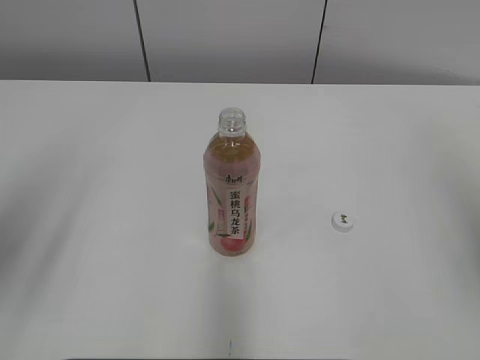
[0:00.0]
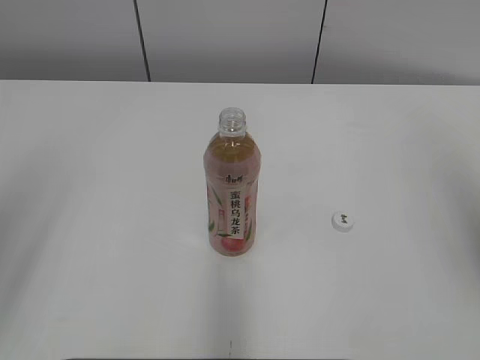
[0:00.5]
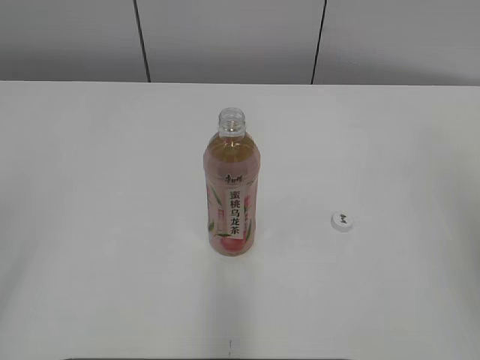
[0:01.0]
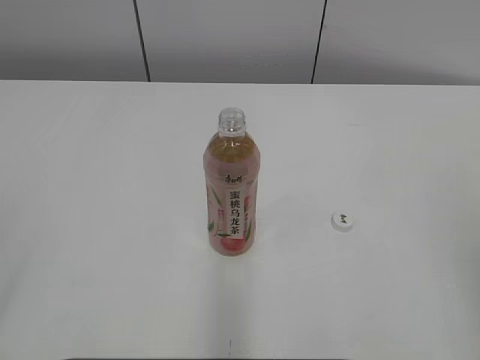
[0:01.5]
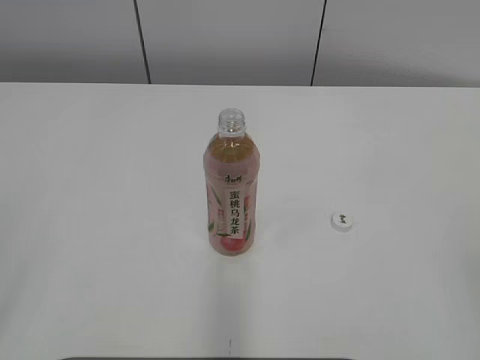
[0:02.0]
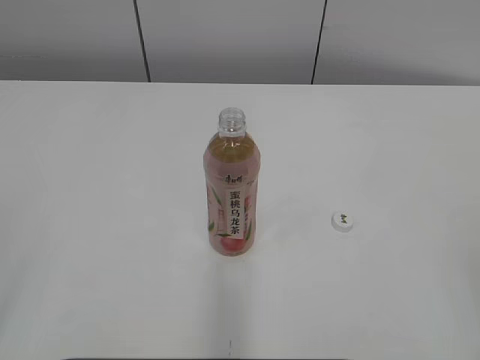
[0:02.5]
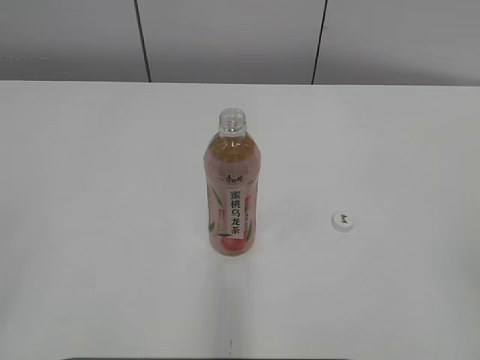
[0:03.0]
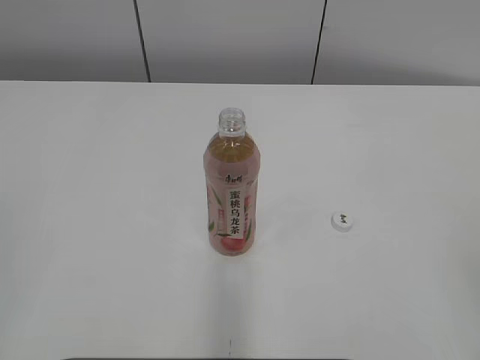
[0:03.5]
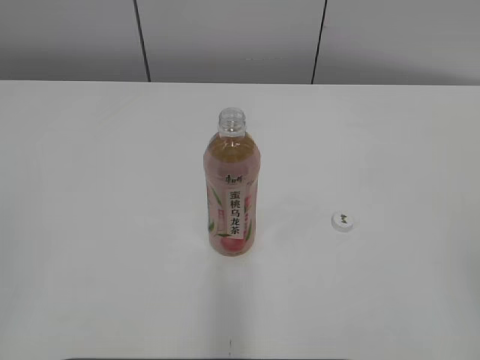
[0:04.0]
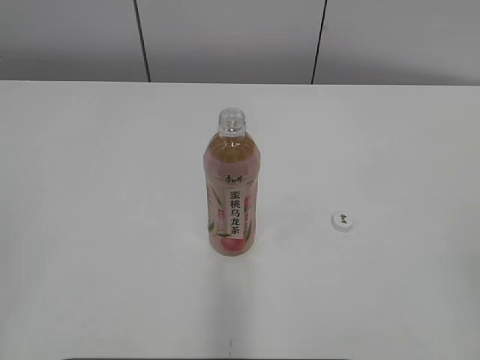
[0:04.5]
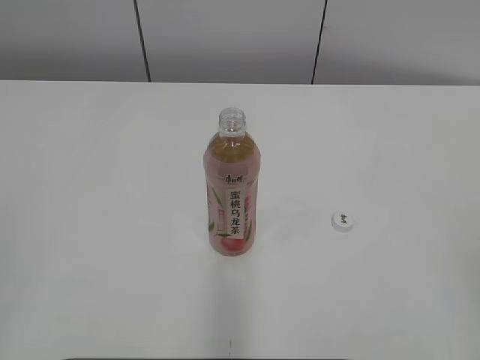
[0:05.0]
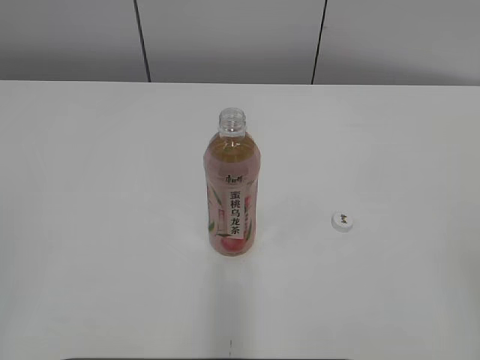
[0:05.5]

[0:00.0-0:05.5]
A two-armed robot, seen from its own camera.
0:00.0 to 0:02.0: The right gripper moves backward and downward, approximately 15 cm; the left gripper heads backward, covering roughly 15 cm.
0:03.5 to 0:05.5: Both grippers stay put.

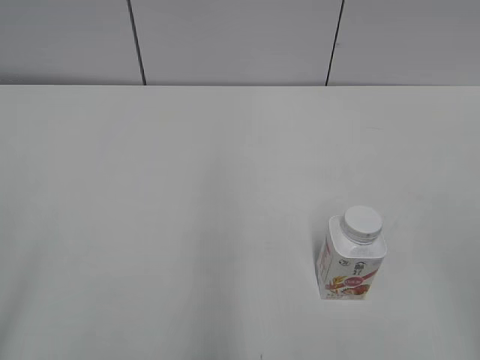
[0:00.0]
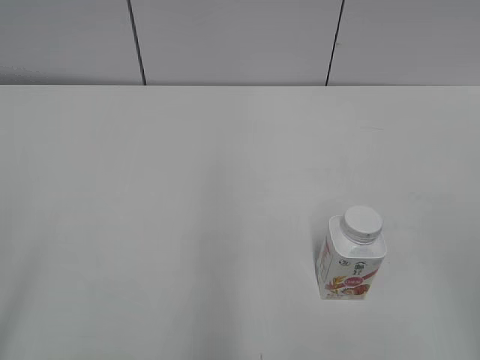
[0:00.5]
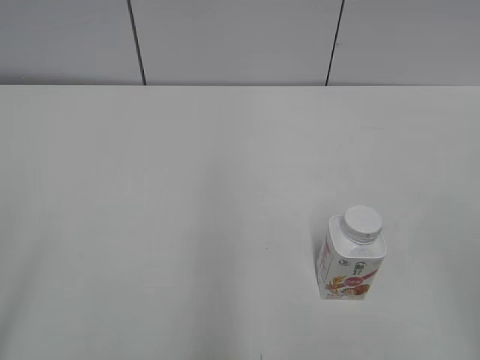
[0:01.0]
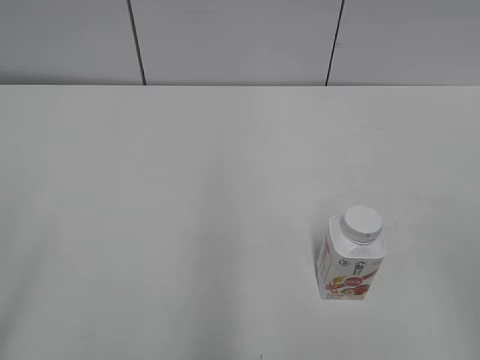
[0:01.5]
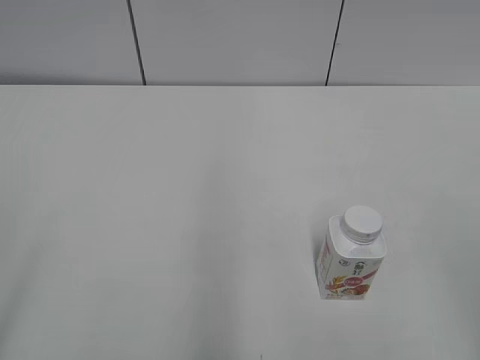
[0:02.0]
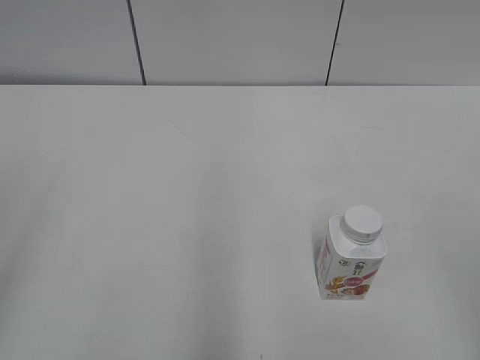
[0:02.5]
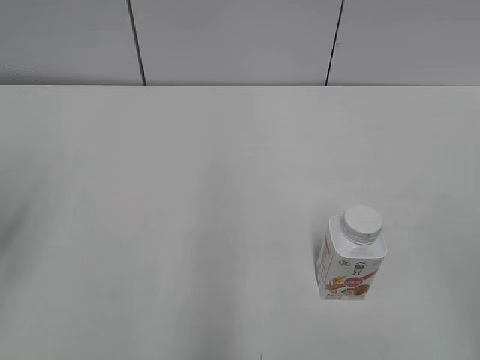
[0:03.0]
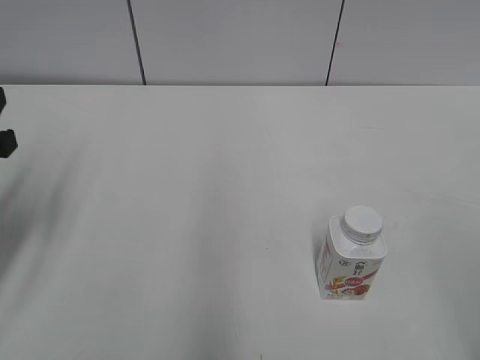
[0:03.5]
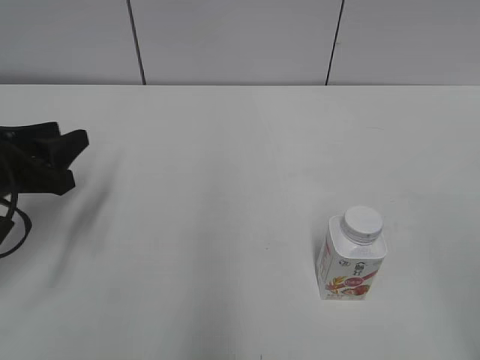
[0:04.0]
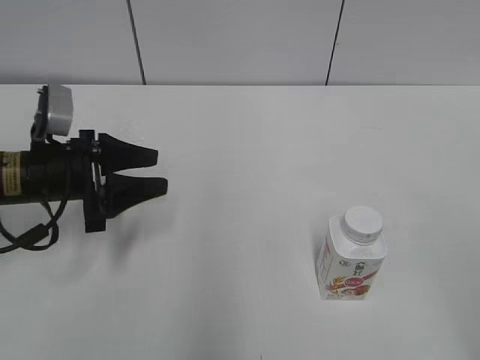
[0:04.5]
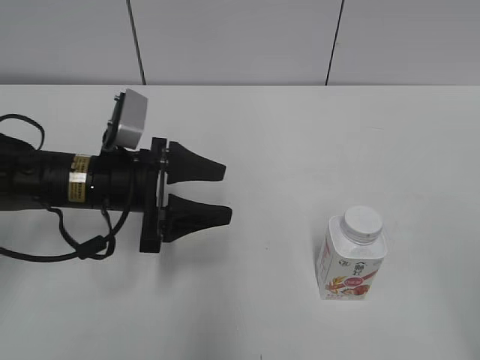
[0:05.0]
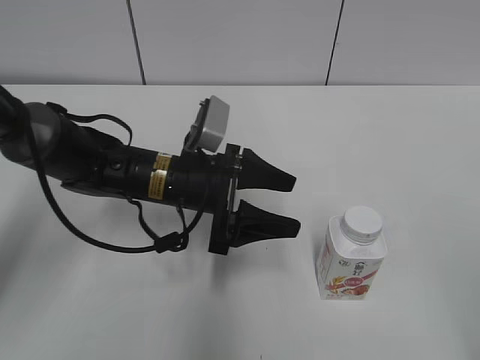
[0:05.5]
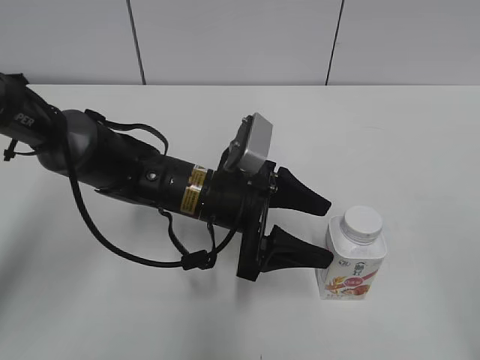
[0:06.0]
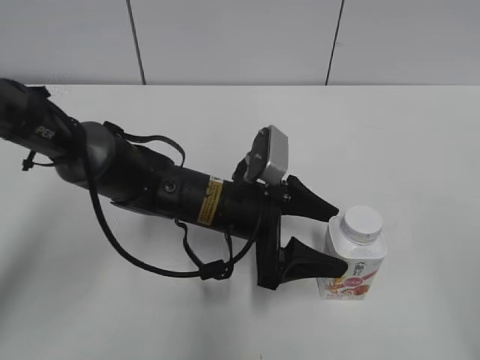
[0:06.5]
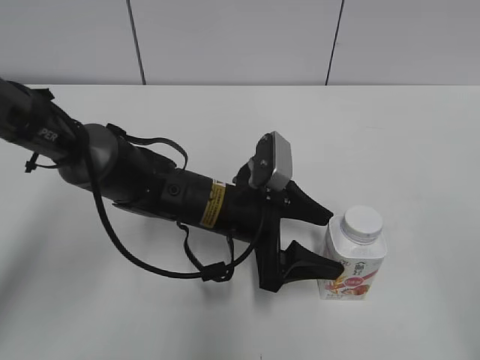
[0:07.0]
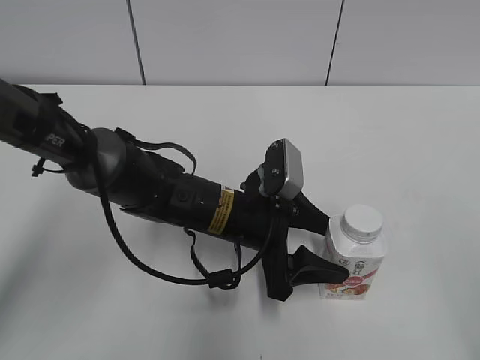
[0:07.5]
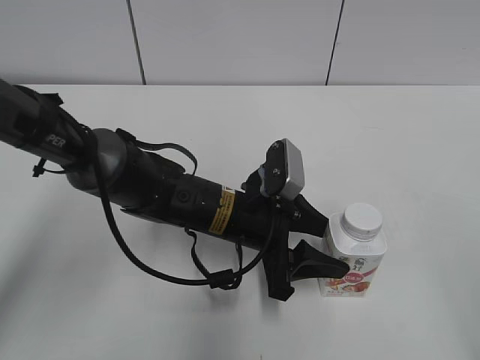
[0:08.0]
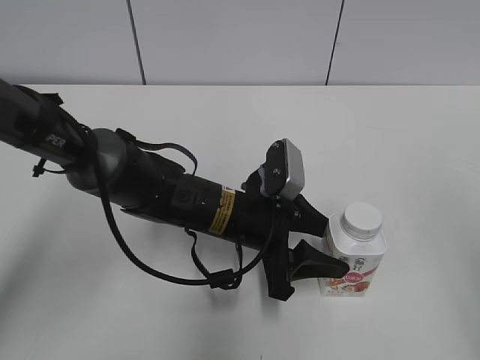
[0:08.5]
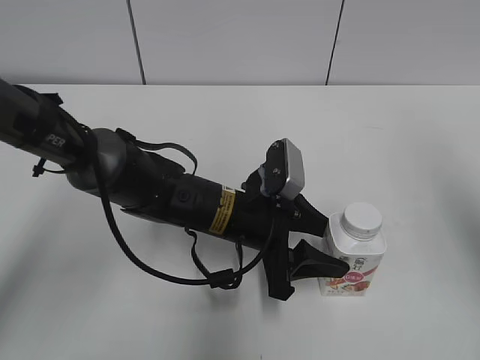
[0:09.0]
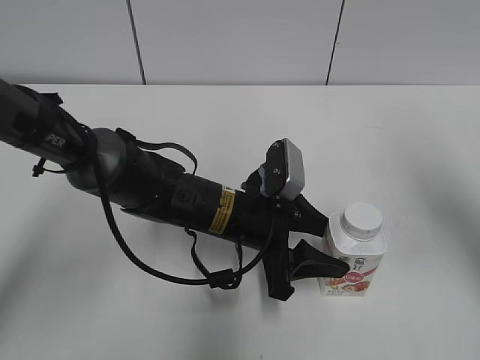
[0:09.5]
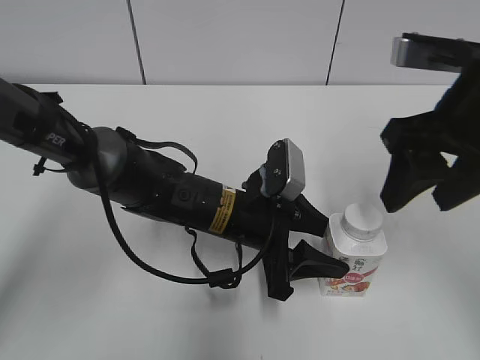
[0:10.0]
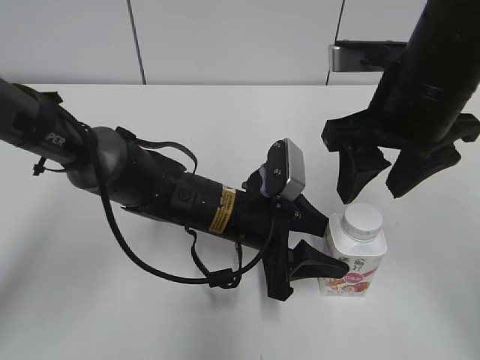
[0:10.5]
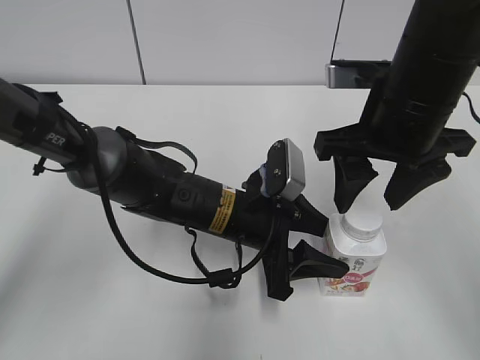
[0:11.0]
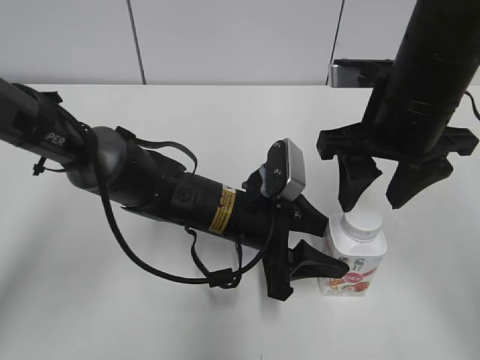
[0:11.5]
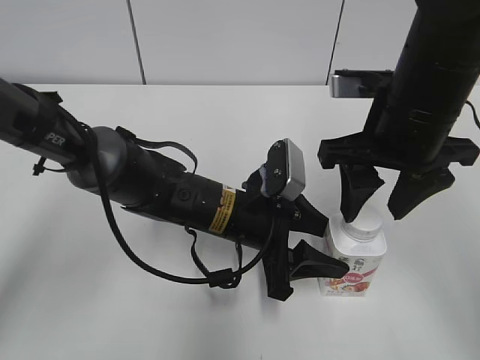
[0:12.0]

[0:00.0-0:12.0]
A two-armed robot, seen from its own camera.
Step, 0:00.0 to 0:08.0: Grab the Yili Changqing with the left hand.
0:02.0 to 0:04.0: The left gripper heads forward and downward, covering some 30 cm, and closes its fingers.
0:04.0 to 0:06.0: The left gripper goes roughly 25 cm to the right, and opens up.
0:06.0 to 0:08.0: The left gripper closes up.
0:08.0 to 0:10.0: The right gripper heads forward and to the left, covering approximately 25 cm.
0:10.0 to 0:12.0: The right gripper shifts by approximately 5 cm.

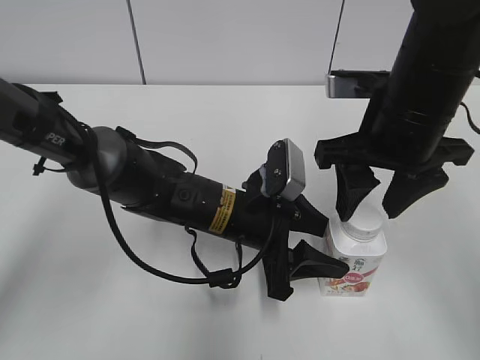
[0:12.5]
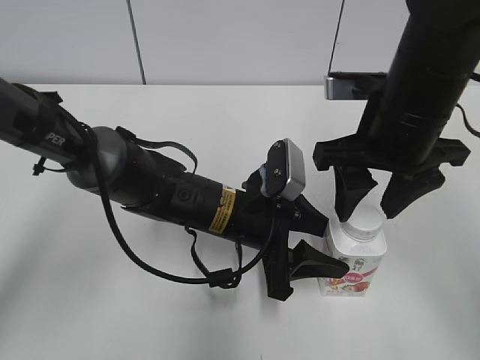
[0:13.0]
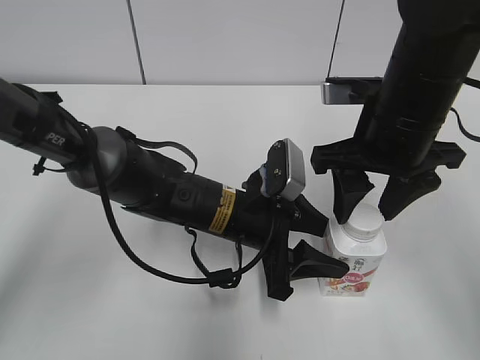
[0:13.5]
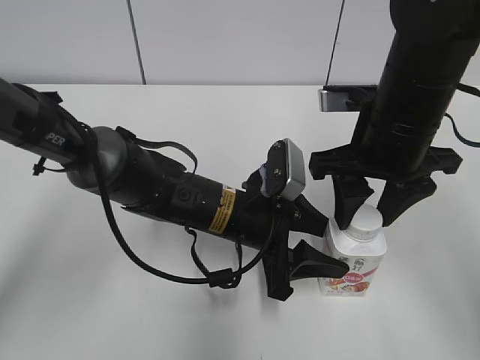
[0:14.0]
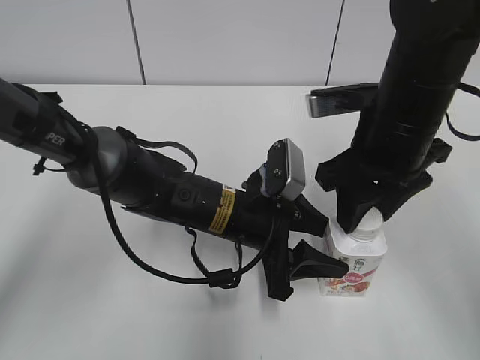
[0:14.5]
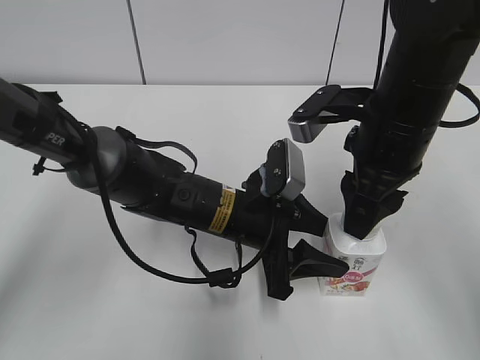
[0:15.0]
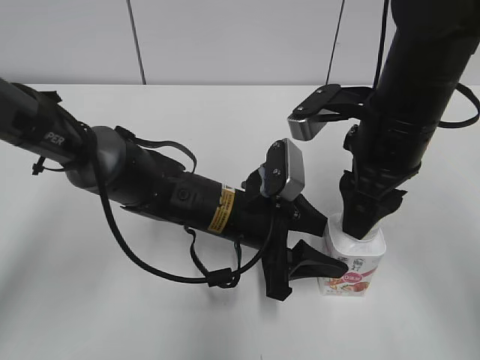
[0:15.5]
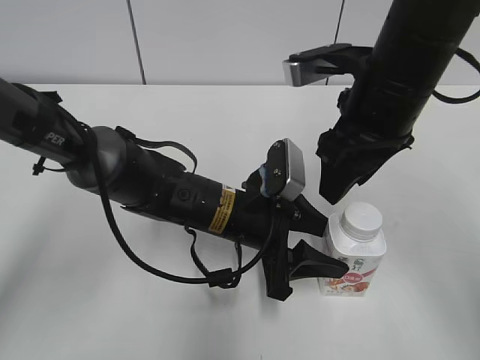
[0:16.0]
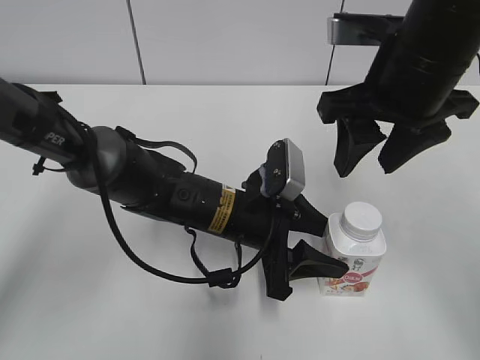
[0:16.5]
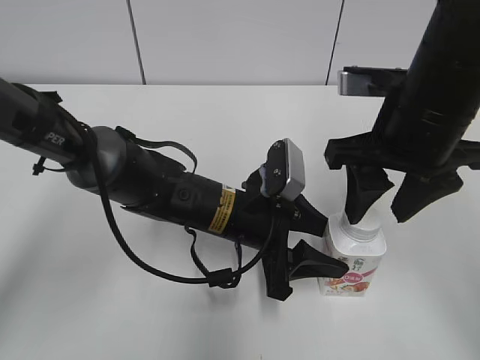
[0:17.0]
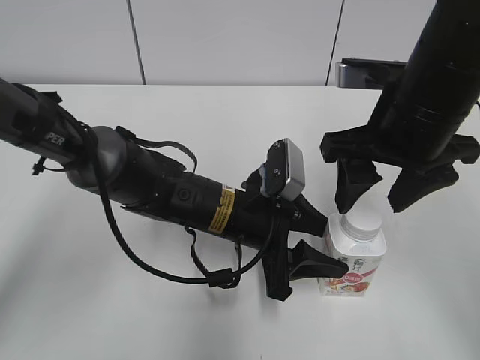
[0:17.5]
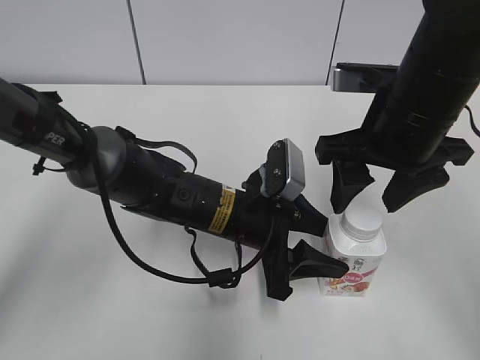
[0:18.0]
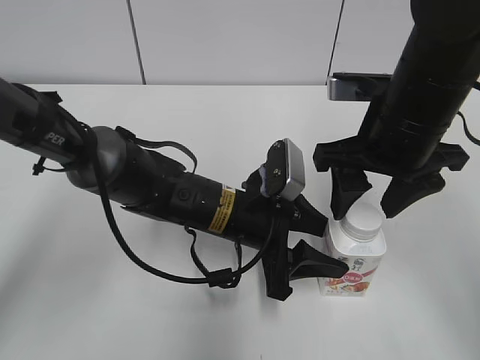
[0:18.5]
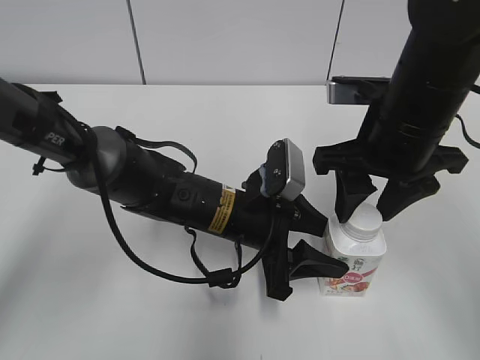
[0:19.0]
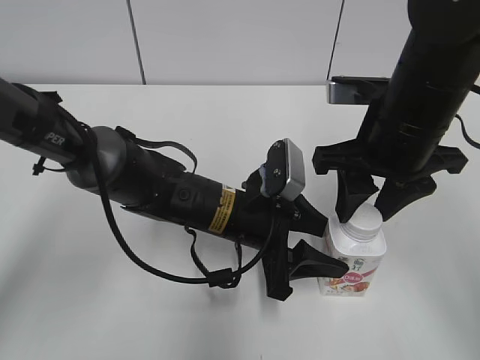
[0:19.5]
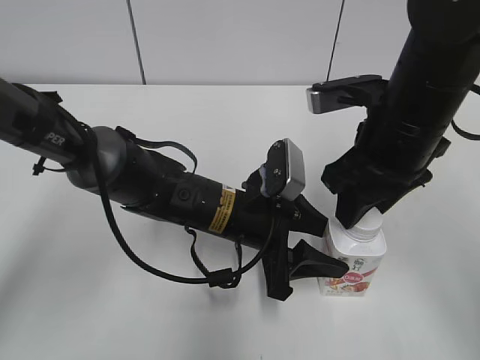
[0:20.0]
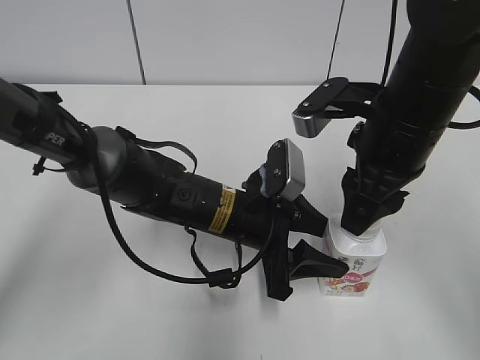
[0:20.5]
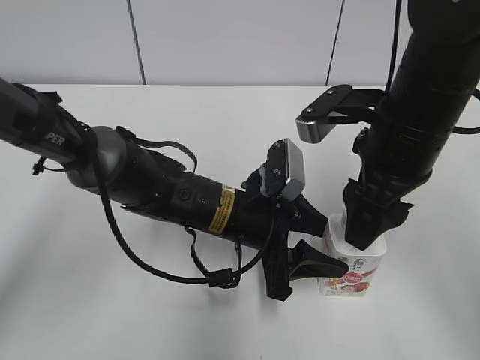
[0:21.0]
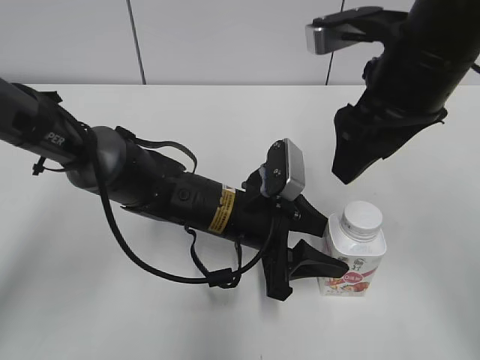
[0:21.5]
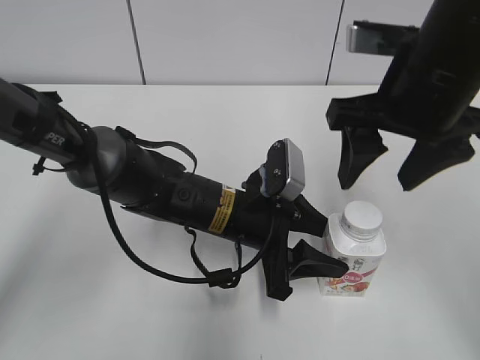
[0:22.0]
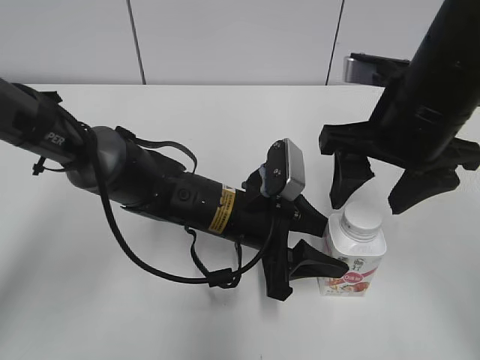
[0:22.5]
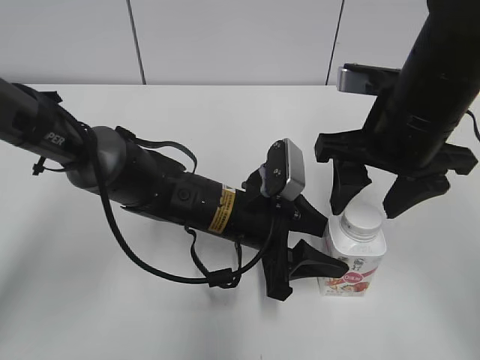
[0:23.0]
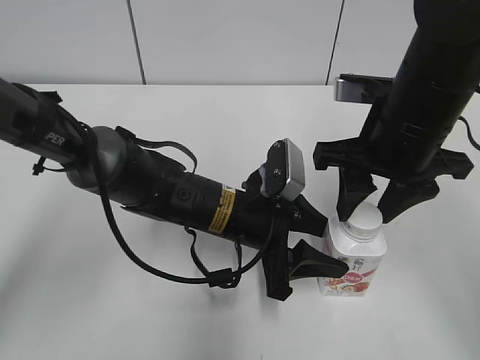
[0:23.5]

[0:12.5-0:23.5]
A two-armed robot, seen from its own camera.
0:12.5 to 0:14.5: The right gripper closes.
0:16.0 to 0:18.0: The right gripper opens up.
0:18.0 to 0:20.0: The right gripper closes its fingers.
0:20.0 to 0:21.5: The right gripper is displaced upward by some 5 cm, and opens.
0:21.5 to 0:23.5: The right gripper is displaced downward by about 5 cm, and closes.
